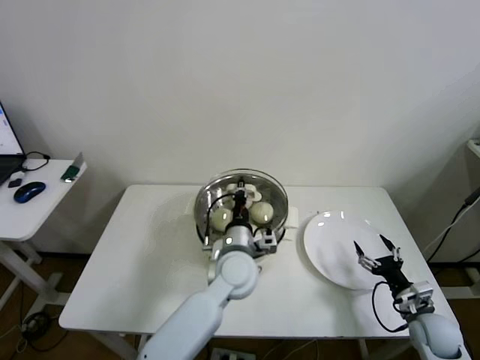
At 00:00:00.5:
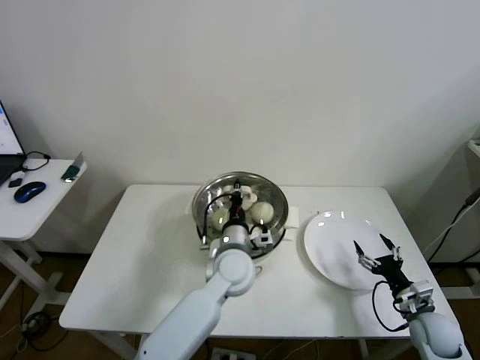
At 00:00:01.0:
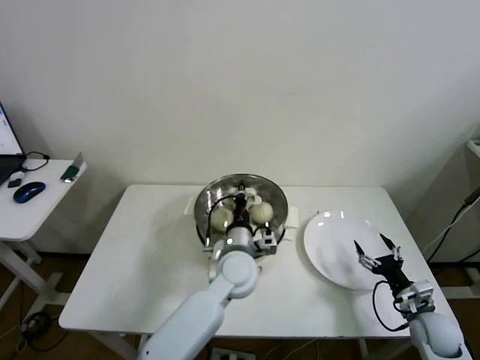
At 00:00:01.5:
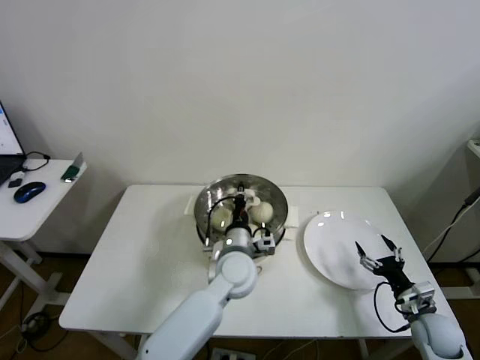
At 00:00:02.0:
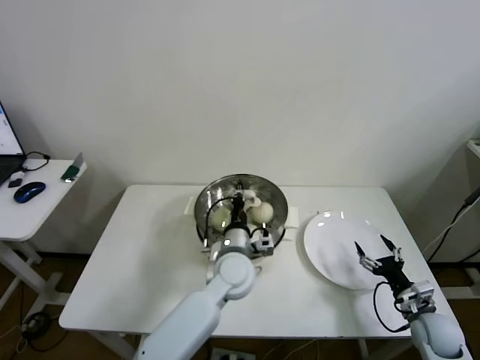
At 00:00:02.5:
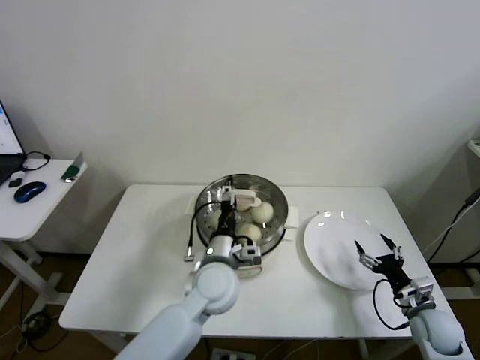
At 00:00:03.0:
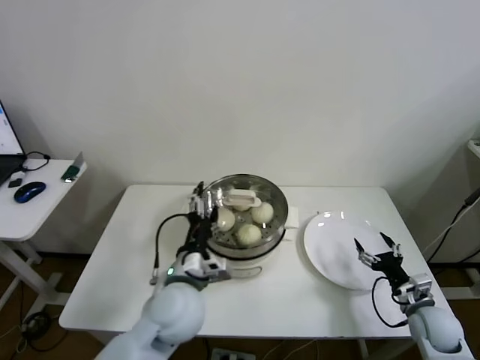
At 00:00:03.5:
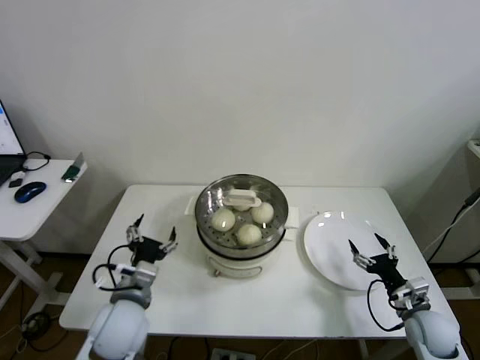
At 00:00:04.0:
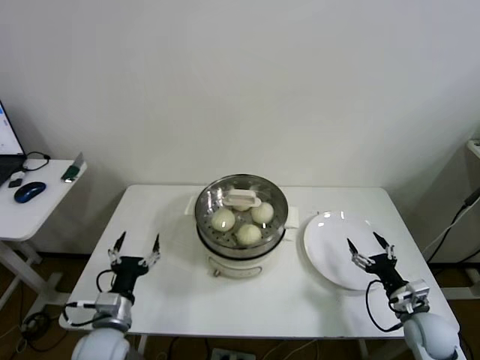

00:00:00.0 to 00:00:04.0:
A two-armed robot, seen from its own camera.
Step, 00:00:00.0 to 00:00:02.5: Place the pot lid on the steamer with left gripper.
00:00:00.0 to 00:00:02.0: The grippers stay close to where they were, moving slightly.
00:00:02.0 to 00:00:04.0: The left gripper heads to the left and backward, covering about 30 cm, and opens its fingers.
